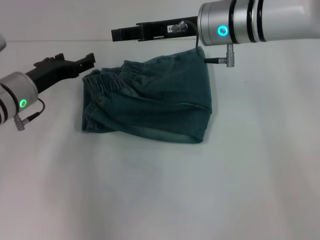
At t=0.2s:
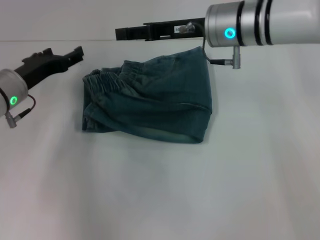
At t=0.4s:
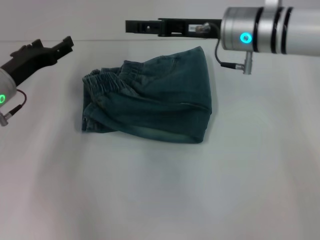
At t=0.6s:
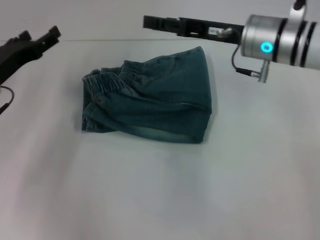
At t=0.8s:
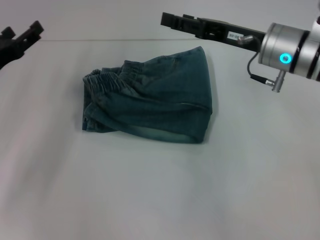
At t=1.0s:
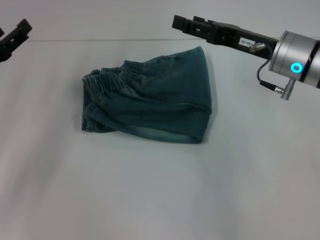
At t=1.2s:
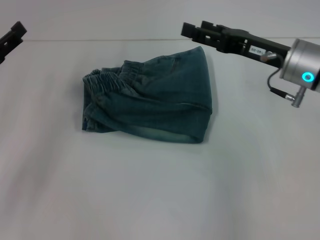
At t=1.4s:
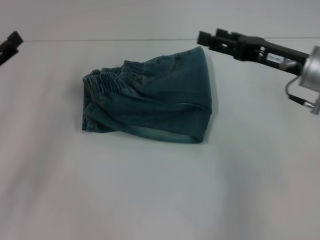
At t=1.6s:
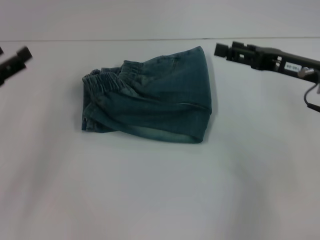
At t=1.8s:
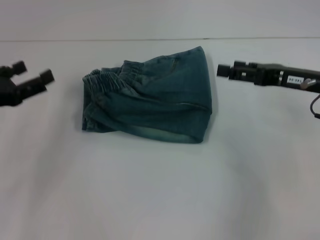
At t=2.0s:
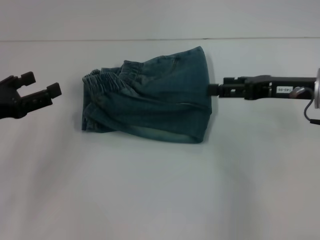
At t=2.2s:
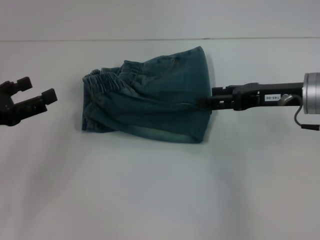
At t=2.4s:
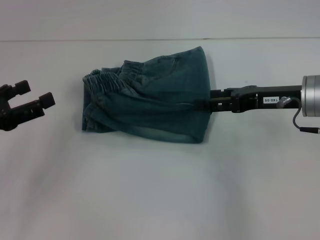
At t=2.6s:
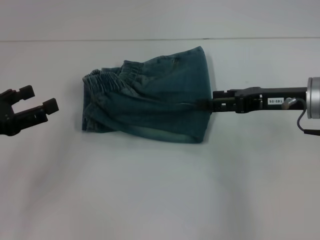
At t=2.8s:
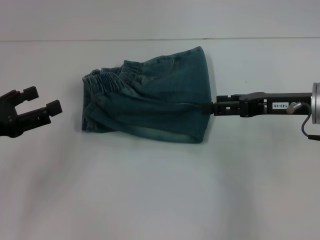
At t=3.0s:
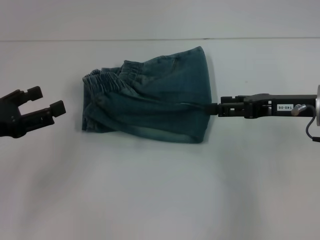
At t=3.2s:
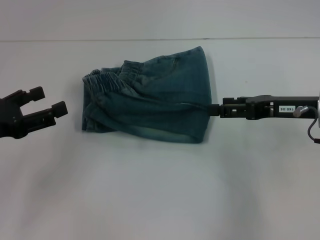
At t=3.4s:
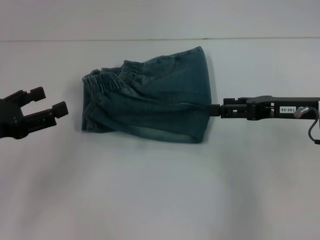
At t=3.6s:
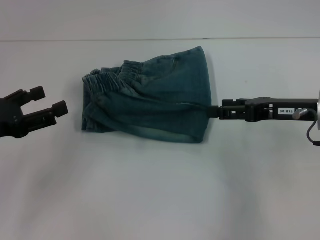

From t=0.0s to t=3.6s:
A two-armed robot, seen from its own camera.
From t=0.0s to t=1.8s: The right gripper heads to the right and backward, covering some 20 cm, and opens up, while the left gripper travels backward and to the left by about 10 cm.
From t=1.8s to t=3.6s: There are only small adjustments of the grippers.
